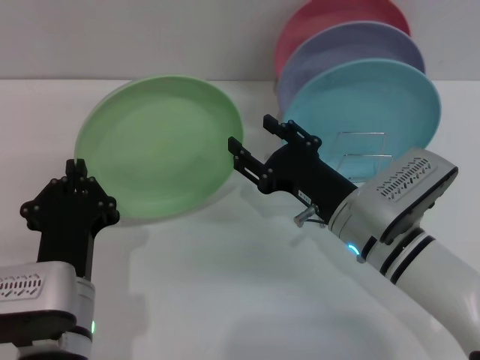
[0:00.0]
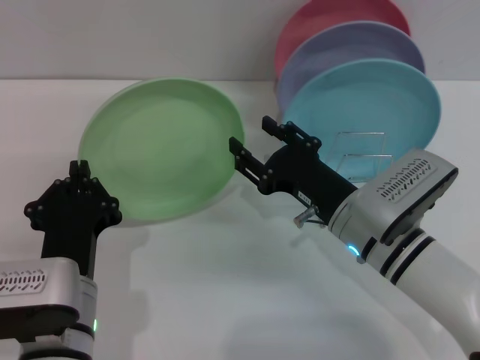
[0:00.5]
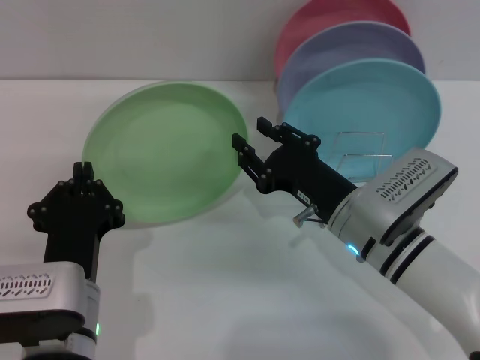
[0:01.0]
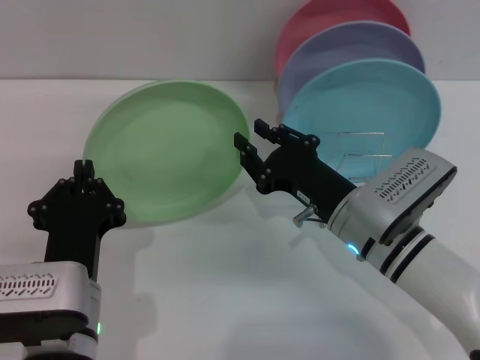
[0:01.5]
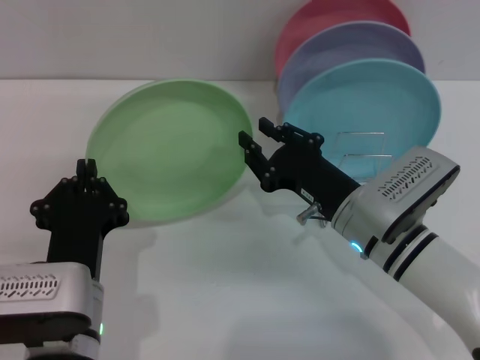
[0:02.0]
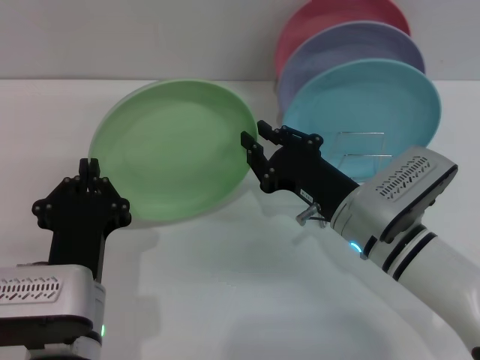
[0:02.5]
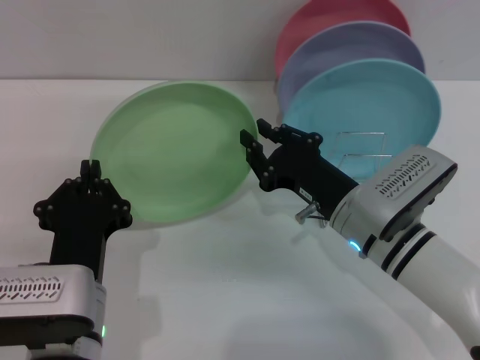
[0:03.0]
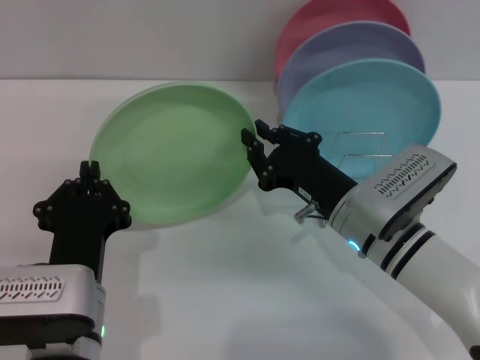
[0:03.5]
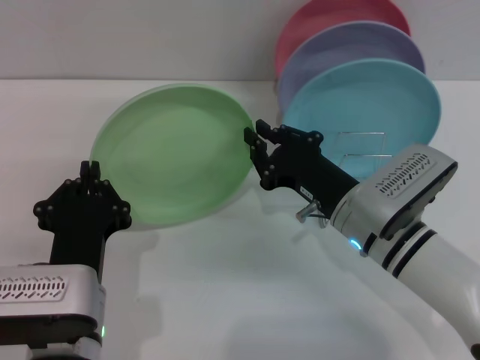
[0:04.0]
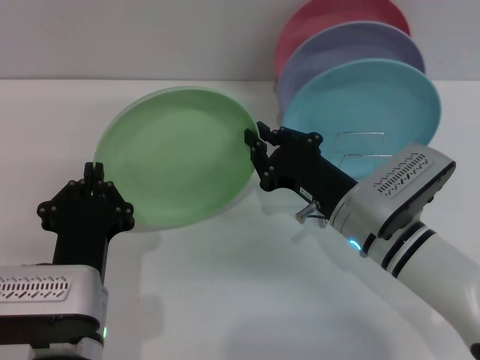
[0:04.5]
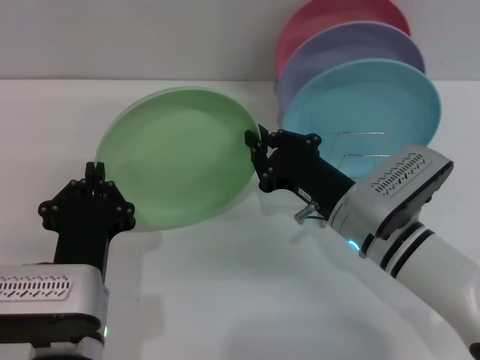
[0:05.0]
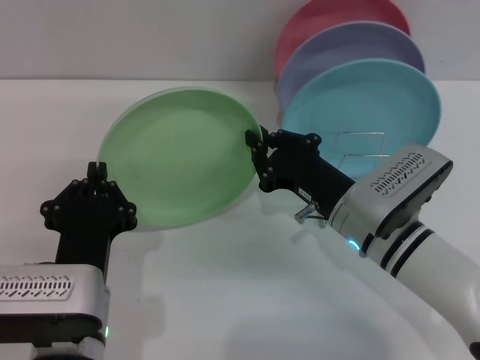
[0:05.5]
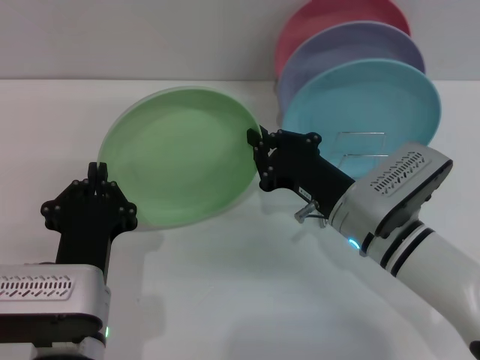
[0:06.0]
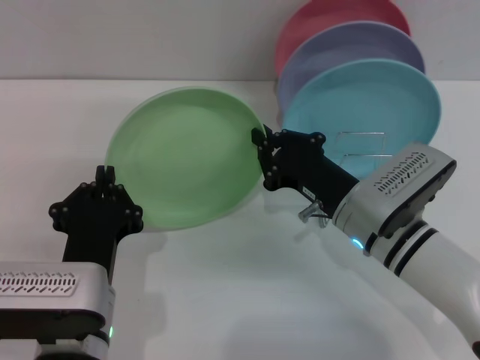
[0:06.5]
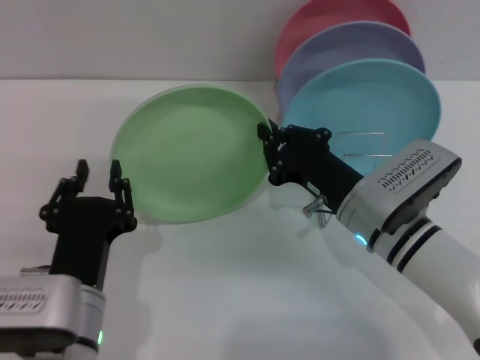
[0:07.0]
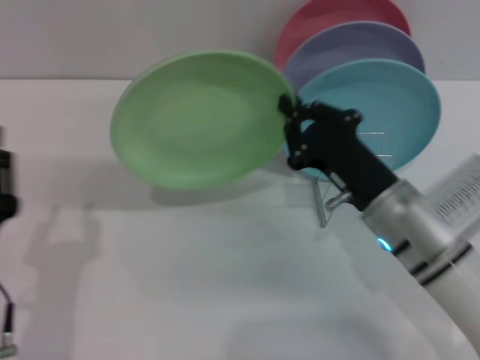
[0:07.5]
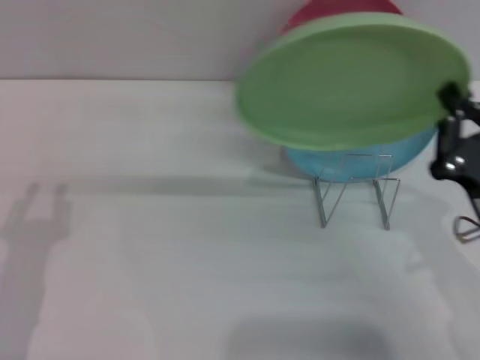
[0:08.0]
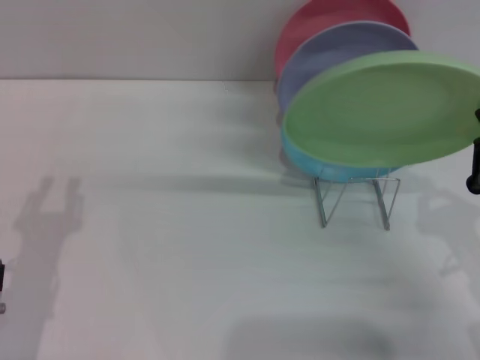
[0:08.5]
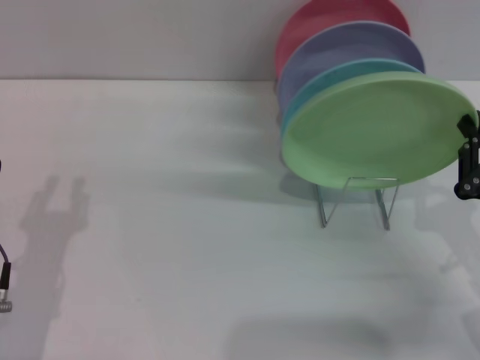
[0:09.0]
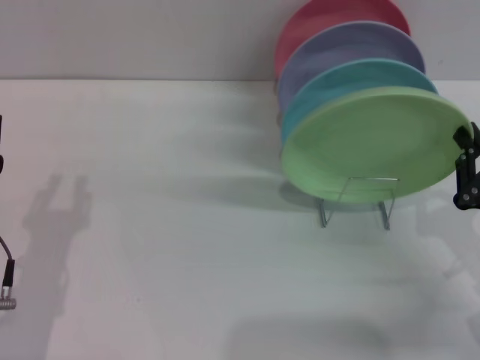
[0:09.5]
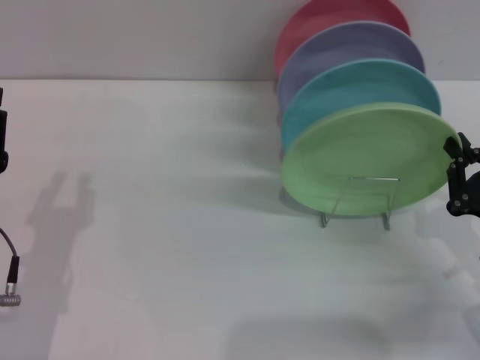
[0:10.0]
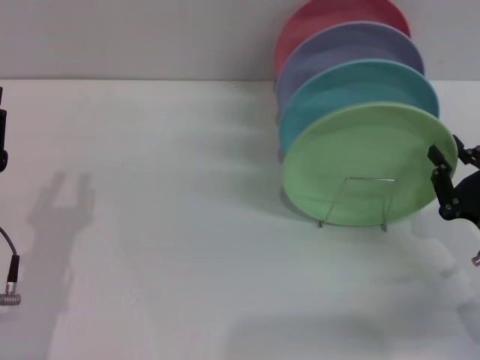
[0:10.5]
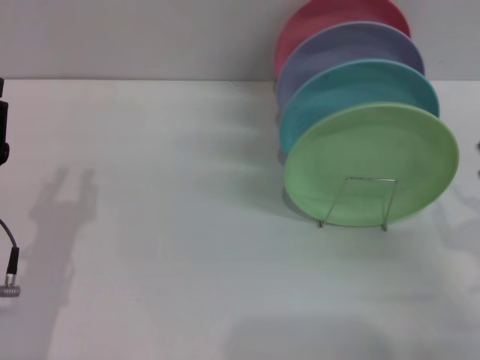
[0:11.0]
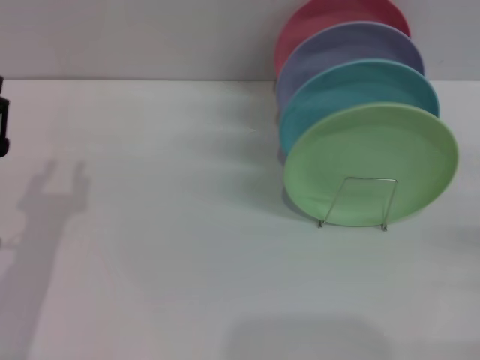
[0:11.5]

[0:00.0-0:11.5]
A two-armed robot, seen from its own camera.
Task of the whole recording: Grip the plate with one hand, pass it to the other, then set it on the shelf.
Step, 0:00.0 to 0:07.0: Pass the plate from the left gripper to the right gripper.
Step, 0:07.5 to 0:10.5: Place the plate on the shelf with the right gripper.
0:00.0 to 0:02.0: The right gripper closes its fingers.
0:02.0 to 0:06.0: Neither gripper changes place.
0:06.0 to 0:07.5: The left gripper is displaced to the left by about 10 cm, and opens up.
0:07.5 to 0:09.5: The right gripper shifts about 15 cm to the right and backward; the left gripper changes place by some 5 cm.
0:09.5 to 0:11.5: The right gripper is displaced to the right by roughly 10 cm, and opens.
